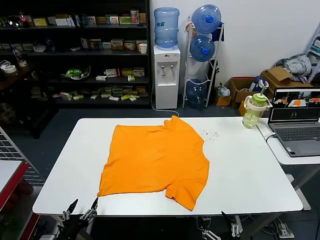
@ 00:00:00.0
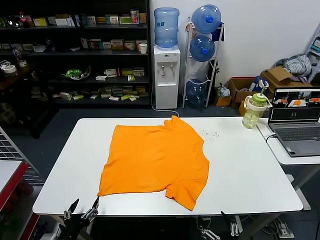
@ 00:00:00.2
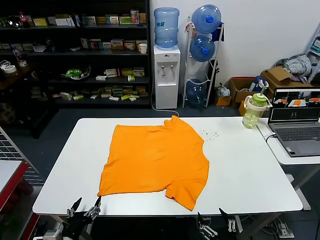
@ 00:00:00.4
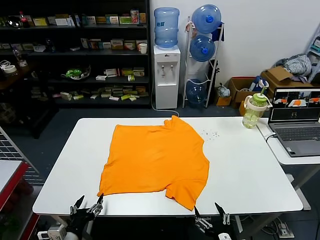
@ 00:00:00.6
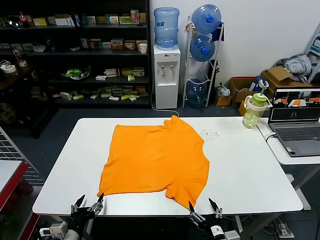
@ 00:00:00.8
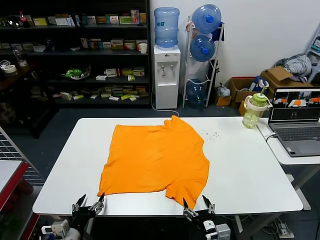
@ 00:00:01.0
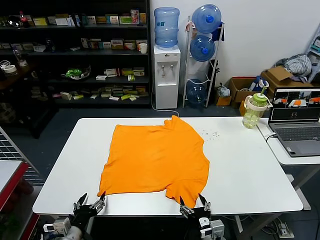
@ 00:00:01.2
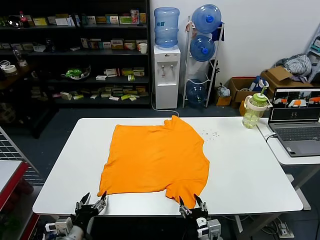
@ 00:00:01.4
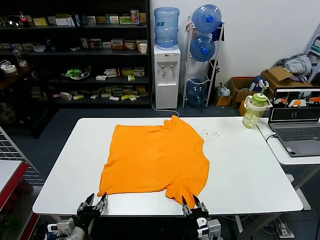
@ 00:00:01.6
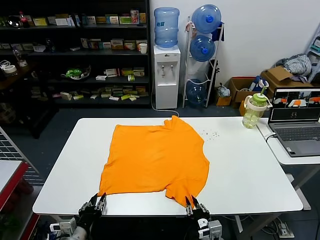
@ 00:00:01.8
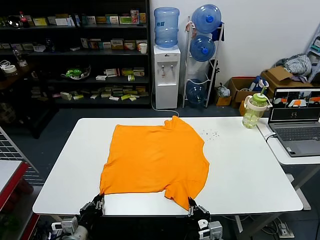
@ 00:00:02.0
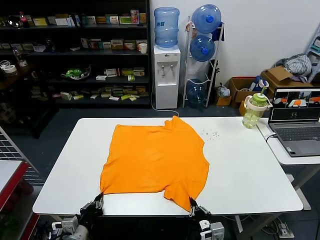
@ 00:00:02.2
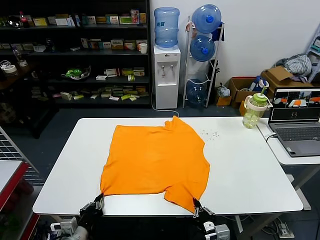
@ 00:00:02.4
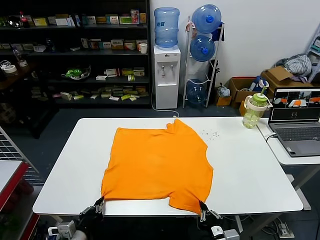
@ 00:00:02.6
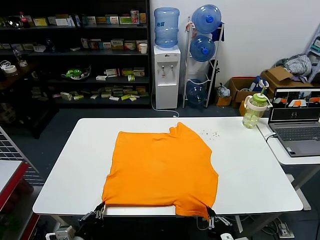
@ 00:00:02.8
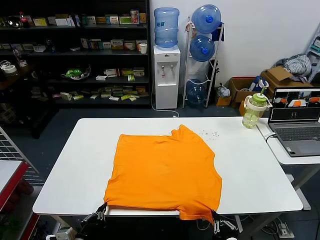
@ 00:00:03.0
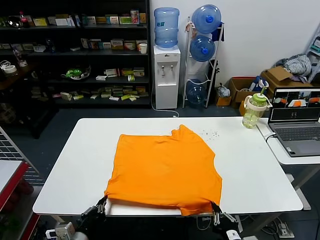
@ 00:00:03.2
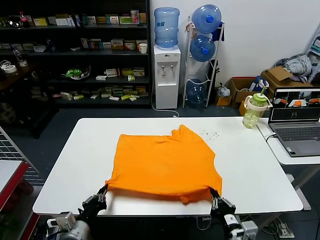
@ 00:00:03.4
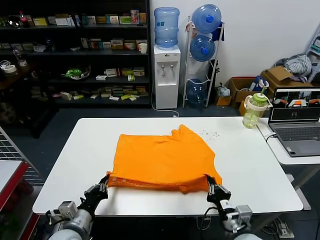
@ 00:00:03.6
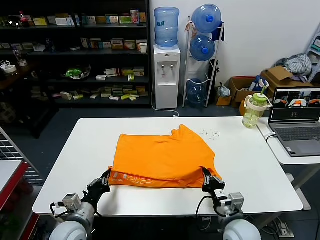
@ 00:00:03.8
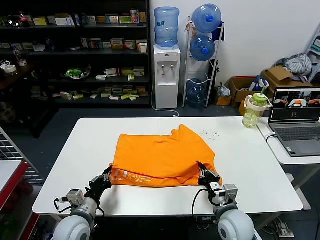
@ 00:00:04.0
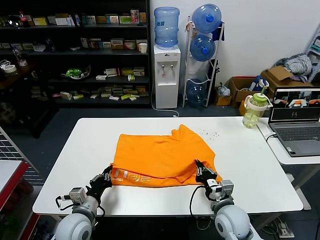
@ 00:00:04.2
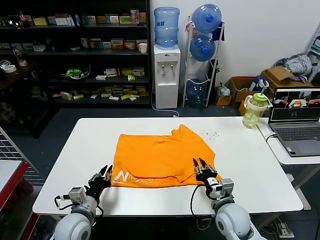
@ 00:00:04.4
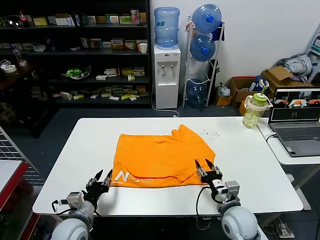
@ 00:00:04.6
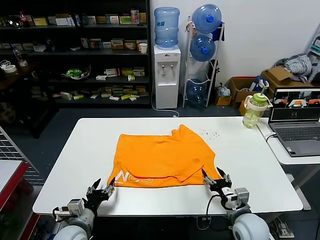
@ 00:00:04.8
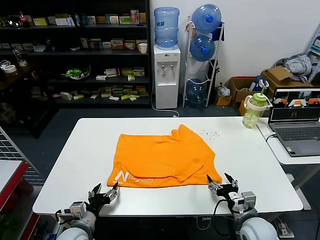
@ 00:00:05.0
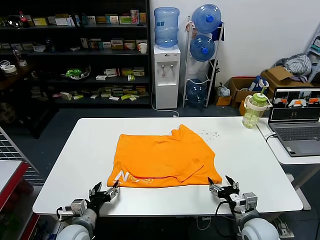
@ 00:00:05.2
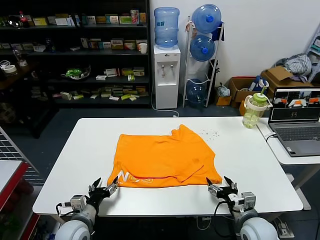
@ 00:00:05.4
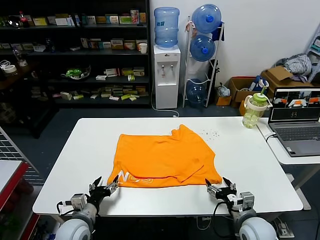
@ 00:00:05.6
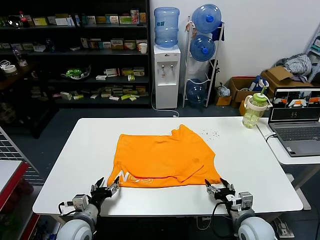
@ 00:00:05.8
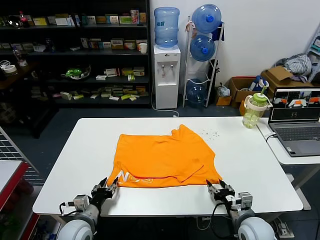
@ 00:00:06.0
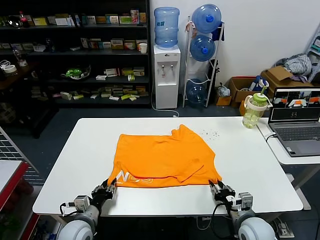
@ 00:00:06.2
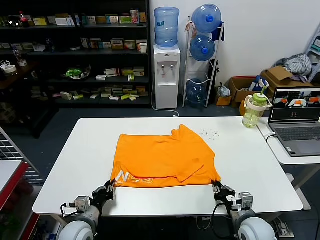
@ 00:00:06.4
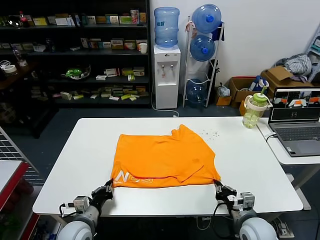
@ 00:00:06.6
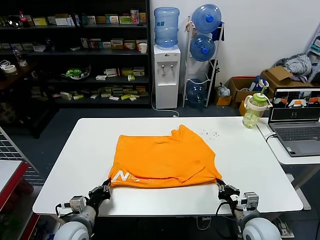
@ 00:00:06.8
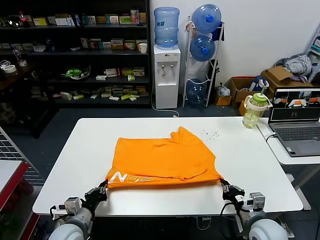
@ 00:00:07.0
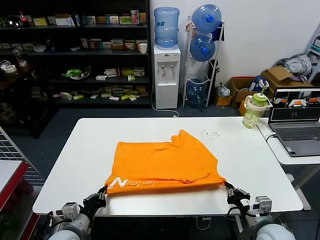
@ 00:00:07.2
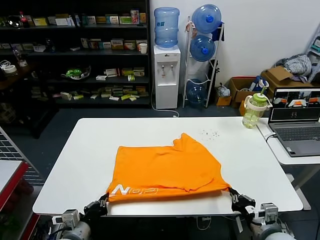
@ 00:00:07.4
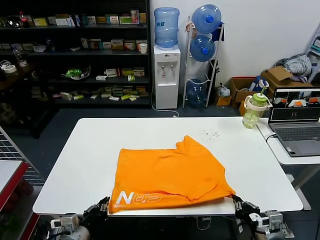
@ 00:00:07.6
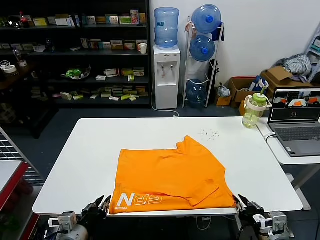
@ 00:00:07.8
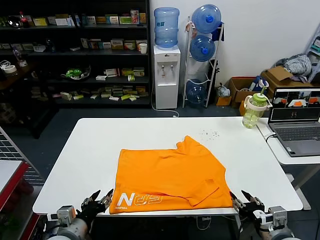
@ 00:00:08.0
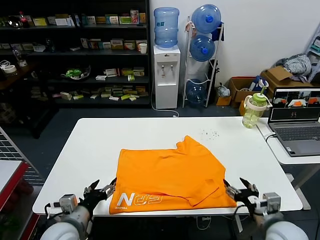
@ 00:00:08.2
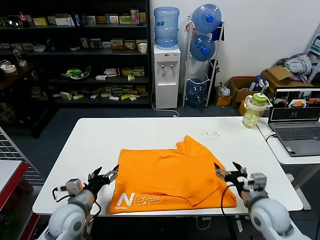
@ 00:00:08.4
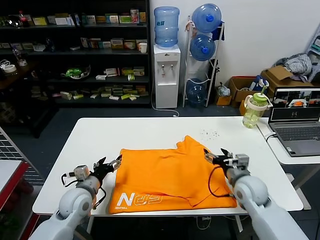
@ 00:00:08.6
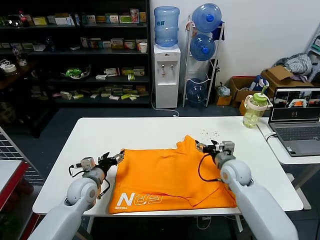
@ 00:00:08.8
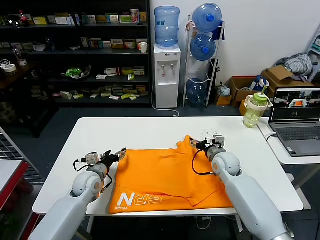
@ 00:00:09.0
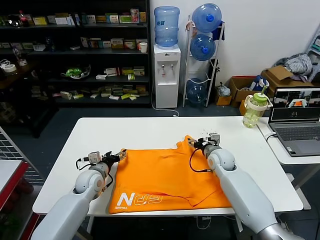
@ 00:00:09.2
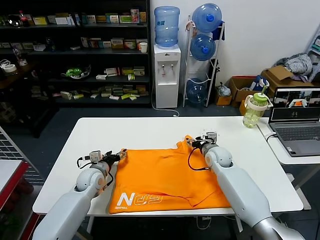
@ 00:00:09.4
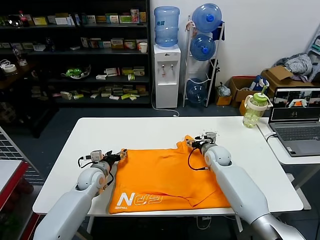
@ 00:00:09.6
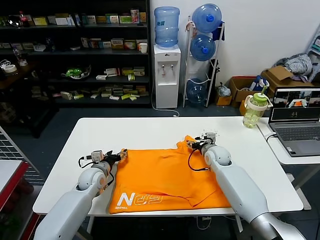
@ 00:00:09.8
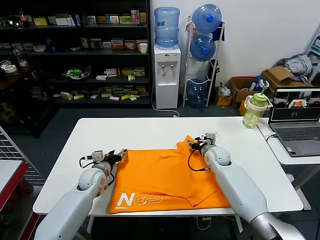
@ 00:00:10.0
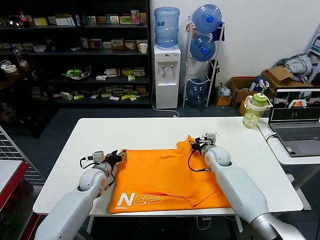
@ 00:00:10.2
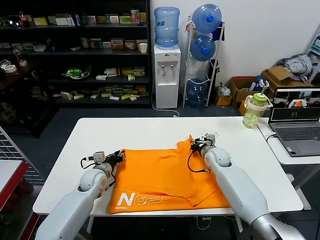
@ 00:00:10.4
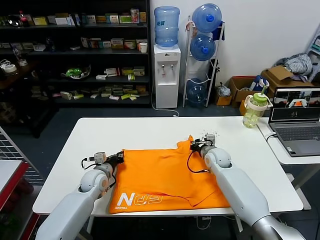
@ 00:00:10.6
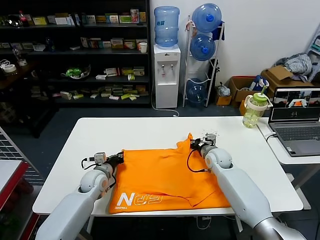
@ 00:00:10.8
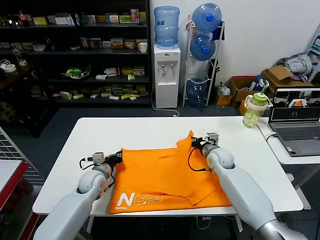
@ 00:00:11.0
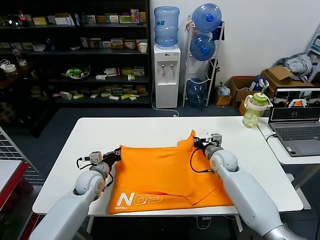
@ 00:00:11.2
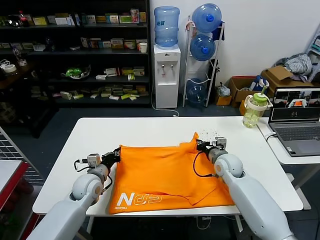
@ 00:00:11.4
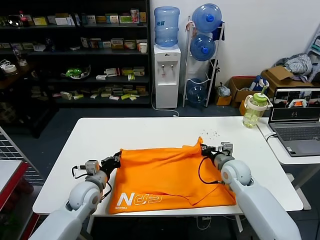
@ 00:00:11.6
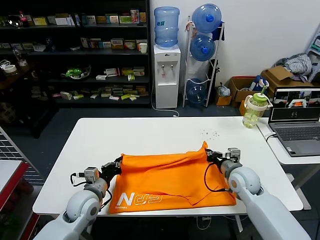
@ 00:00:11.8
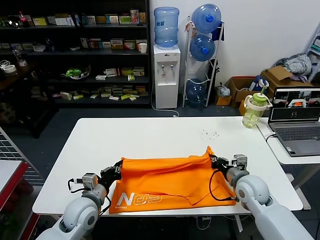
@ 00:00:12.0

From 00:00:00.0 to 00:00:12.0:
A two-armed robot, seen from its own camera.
Task of the whole recording: fold and organize the clothes.
Step, from 00:00:00.0 to 00:00:02.0: use both grippers simultaneously to clamp the lower edge of the clothing fabric.
Step, from 00:00:02.2 to 00:00:04.2: use both grippers to drag the lower edge of the fabric forward and fold it over the upper edge.
Step, from 00:00:04.4 to 00:00:07.6: Drag the clothes downward with both gripper.
Step, from 00:00:07.8 to 00:00:10.6: use both grippers simultaneously to clamp the upper edge of the clothing fabric.
From 00:00:01.6 to 00:00:03.0: The right gripper travels backward, to the right and upward by some 10 cm, and closes up. Meanwhile the left gripper ends up roughly 5 cm from where it was, and closes up.
From 00:00:03.0 to 00:00:04.4: The right gripper travels forward by some 20 cm, and opens. Meanwhile the left gripper travels forward by about 10 cm.
From 00:00:04.4 to 00:00:06.0: The right gripper travels to the right by about 5 cm, and opens, then closes again. The left gripper opens up.
From 00:00:06.0 to 00:00:07.6: The two grippers go some 10 cm backward and upward. The left gripper closes. Meanwhile the right gripper closes up.
From 00:00:07.6 to 00:00:09.0: The two grippers go roughly 25 cm forward. The right gripper opens. Meanwhile the left gripper opens.
From 00:00:09.0 to 00:00:10.4: The right gripper ends up approximately 5 cm from where it was, and closes its fingers, while the left gripper closes up.
From 00:00:10.4 to 00:00:12.0: The left gripper is displaced backward and upward by approximately 15 cm, and closes its fingers, while the right gripper goes some 15 cm backward and to the right.

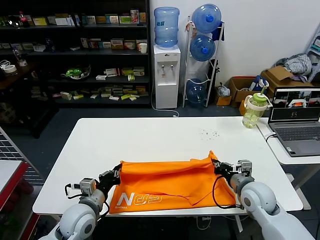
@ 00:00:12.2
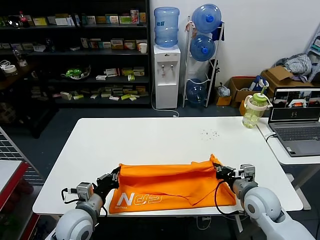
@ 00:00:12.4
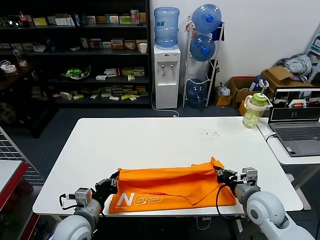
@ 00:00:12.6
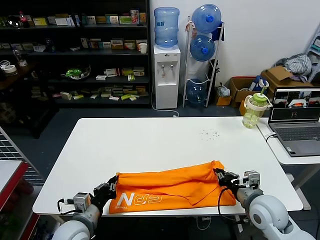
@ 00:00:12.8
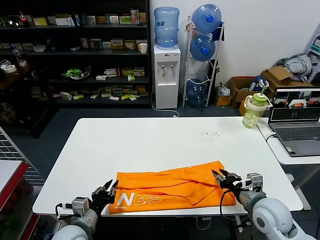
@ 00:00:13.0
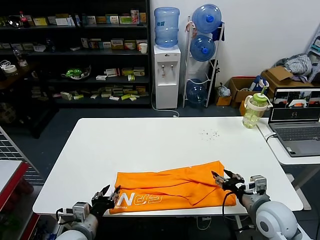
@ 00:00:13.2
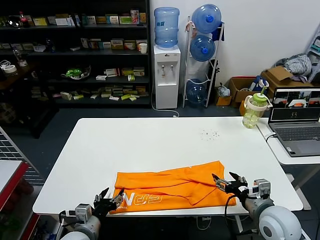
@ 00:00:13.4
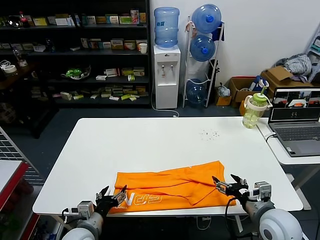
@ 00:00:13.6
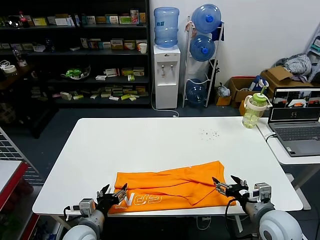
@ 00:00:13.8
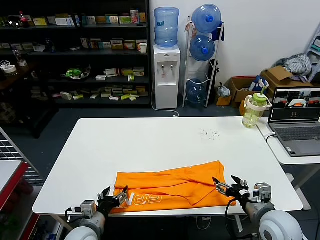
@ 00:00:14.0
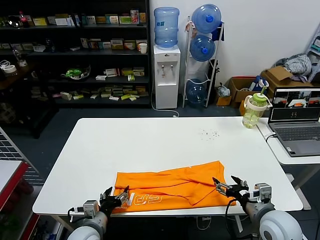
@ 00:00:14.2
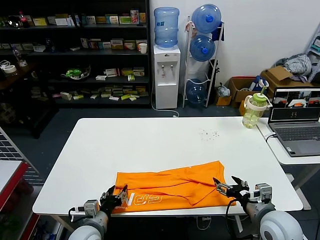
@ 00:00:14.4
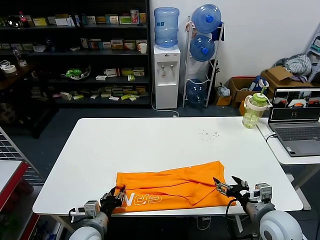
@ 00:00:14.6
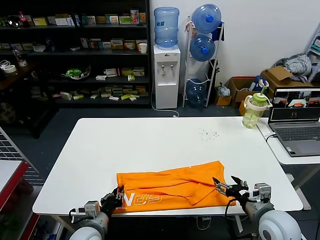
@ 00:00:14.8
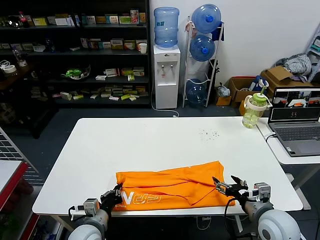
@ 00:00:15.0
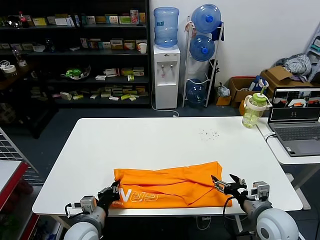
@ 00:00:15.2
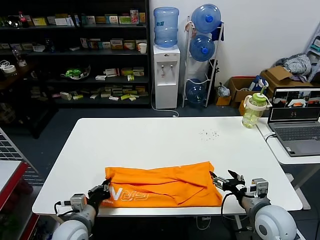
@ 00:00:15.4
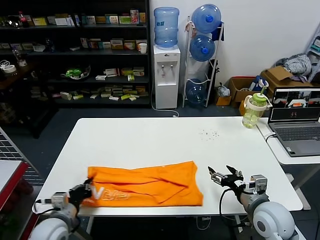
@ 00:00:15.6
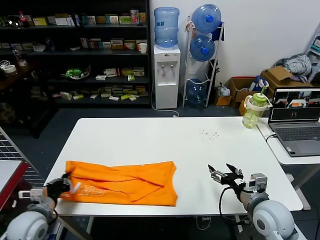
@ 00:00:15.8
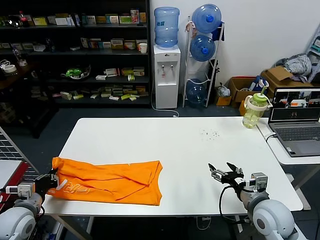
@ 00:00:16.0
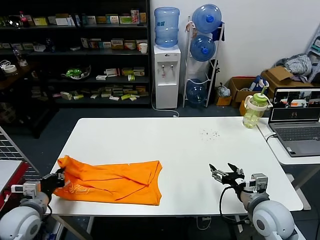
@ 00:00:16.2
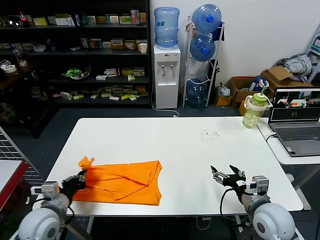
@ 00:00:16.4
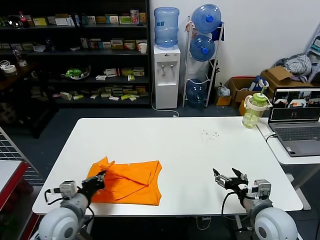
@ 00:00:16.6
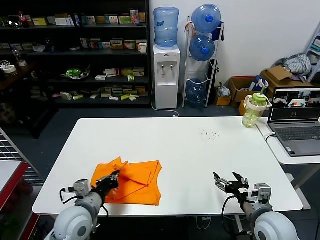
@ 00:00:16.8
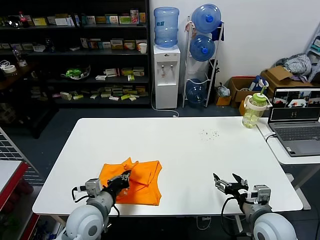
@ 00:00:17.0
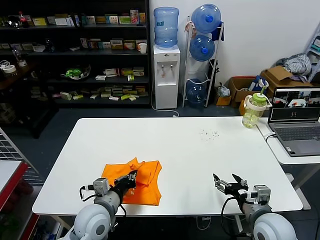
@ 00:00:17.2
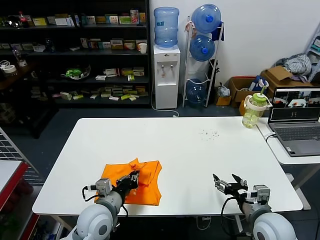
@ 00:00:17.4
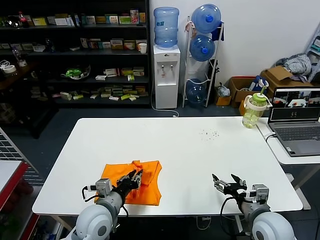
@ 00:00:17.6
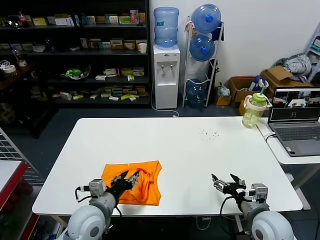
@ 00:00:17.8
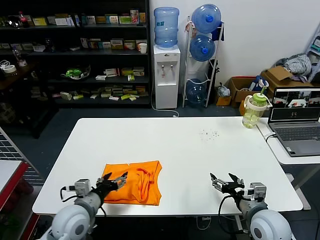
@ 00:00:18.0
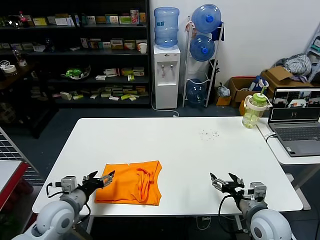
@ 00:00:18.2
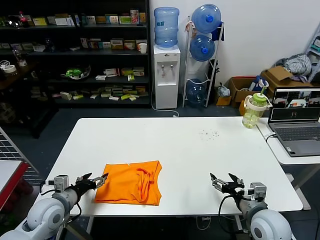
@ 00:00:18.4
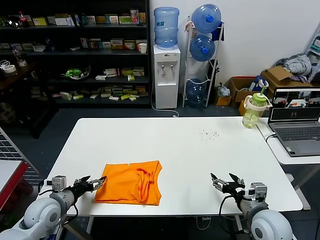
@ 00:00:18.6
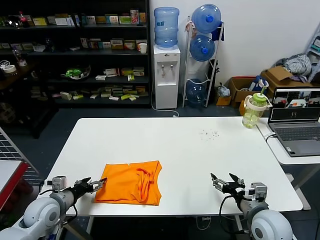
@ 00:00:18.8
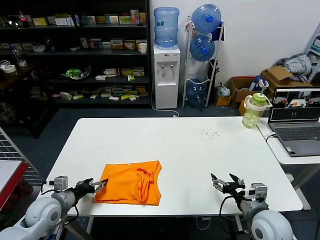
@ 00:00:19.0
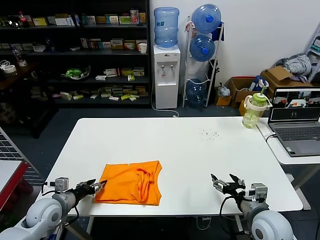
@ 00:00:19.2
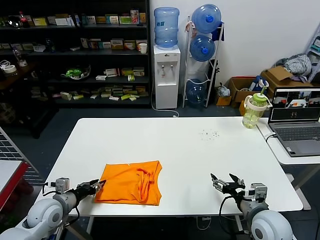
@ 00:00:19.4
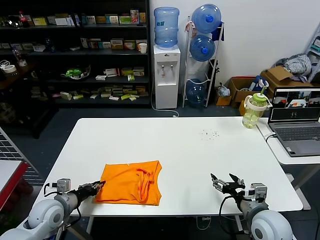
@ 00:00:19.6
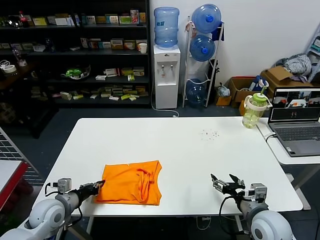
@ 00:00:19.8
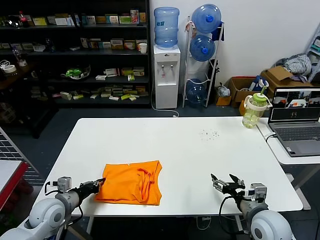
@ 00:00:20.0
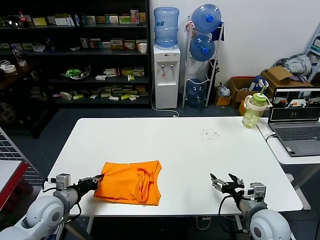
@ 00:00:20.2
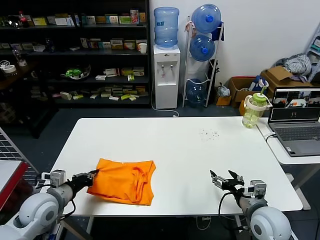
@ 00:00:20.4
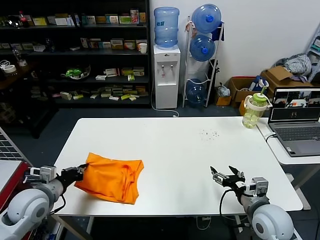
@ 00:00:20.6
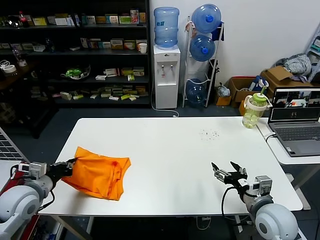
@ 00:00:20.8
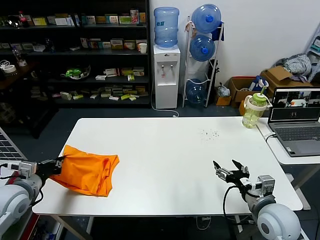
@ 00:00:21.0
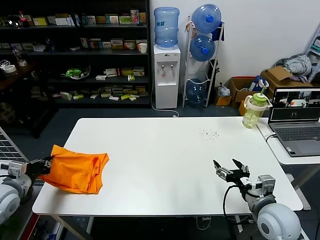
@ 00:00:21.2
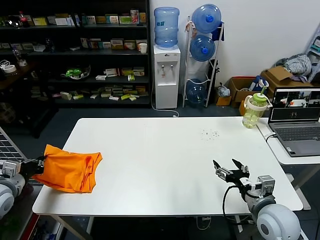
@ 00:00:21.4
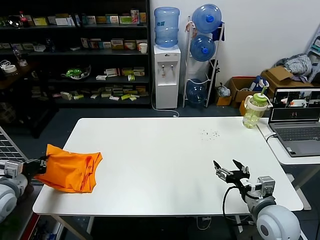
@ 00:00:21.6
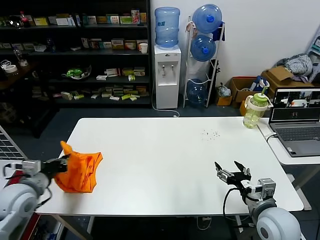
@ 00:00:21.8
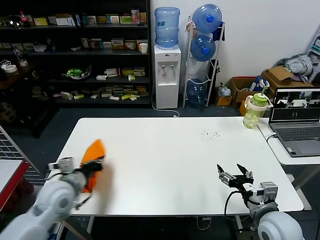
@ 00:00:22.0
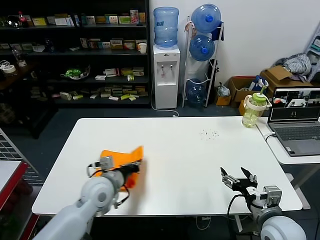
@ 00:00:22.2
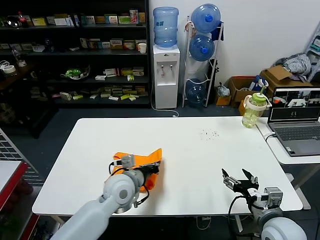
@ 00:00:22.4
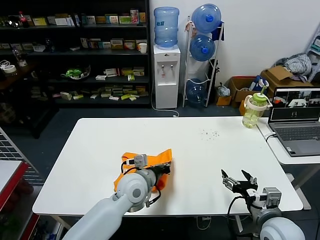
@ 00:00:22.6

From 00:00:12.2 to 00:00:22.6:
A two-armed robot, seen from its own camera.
Task of the whole recording: fold and organize the clothes.
Step, from 00:00:13.0 to 00:00:14.8: use the left gripper to clamp the left edge of the fabric.
Step, from 00:00:15.0 to 00:00:17.6: use the left gripper to drag the left edge of the fabric to the left and folds it over the right edge.
From 00:00:12.2 to 00:00:13.6: Both grippers move backward, about 10 cm. The left gripper opens its fingers. The right gripper opens up.
From 00:00:13.6 to 00:00:15.2: The left gripper closes its fingers.
From 00:00:15.2 to 00:00:16.6: The left gripper heads upward, covering approximately 5 cm, and goes to the left and returns, roughly 20 cm each way.
From 00:00:16.6 to 00:00:18.2: The left gripper goes to the right and returns, approximately 10 cm each way, and opens its fingers.
From 00:00:18.2 to 00:00:19.6: The left gripper heads to the left, covering roughly 5 cm, and closes.
From 00:00:19.6 to 00:00:21.2: The left gripper goes about 15 cm upward and to the left.
From 00:00:21.2 to 00:00:22.6: The left gripper goes approximately 35 cm to the right.
